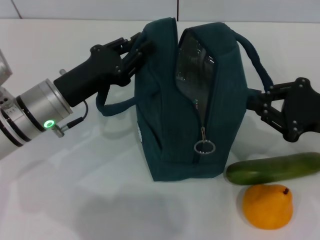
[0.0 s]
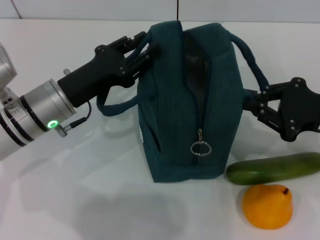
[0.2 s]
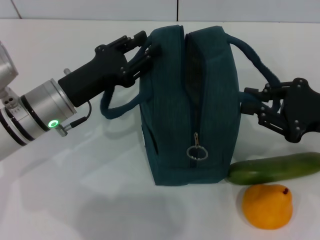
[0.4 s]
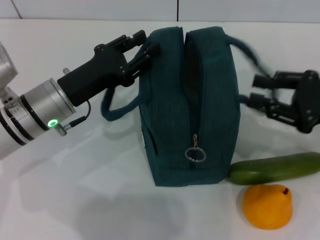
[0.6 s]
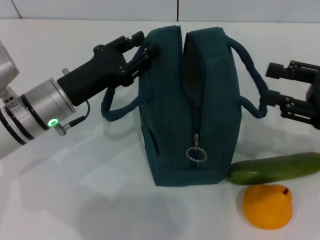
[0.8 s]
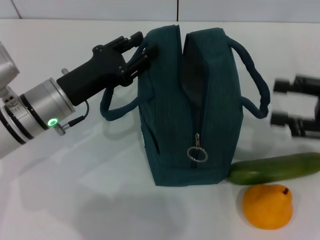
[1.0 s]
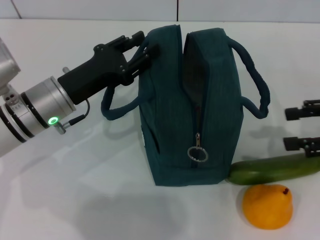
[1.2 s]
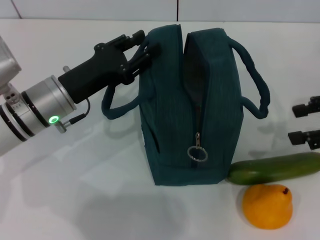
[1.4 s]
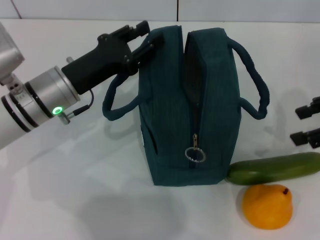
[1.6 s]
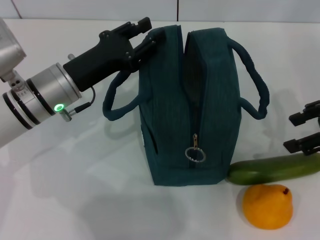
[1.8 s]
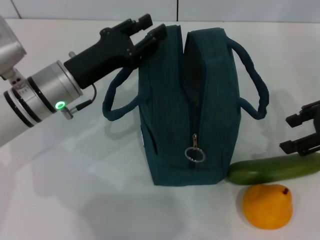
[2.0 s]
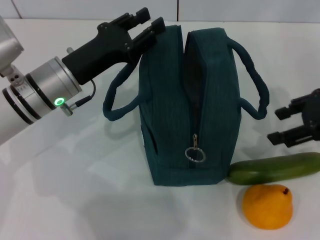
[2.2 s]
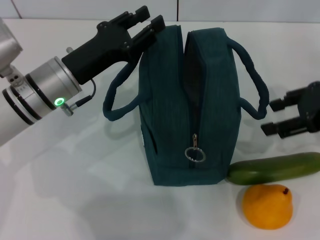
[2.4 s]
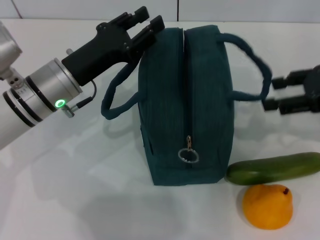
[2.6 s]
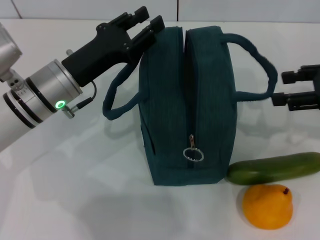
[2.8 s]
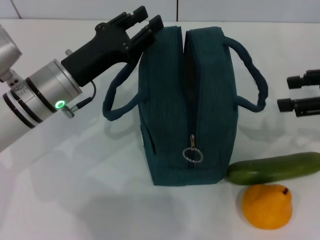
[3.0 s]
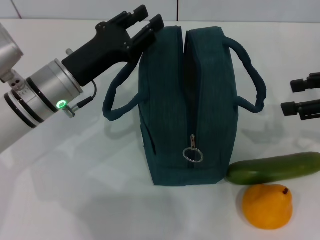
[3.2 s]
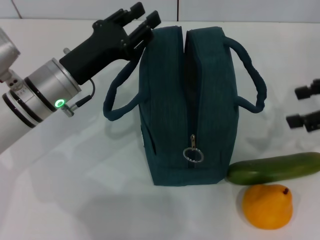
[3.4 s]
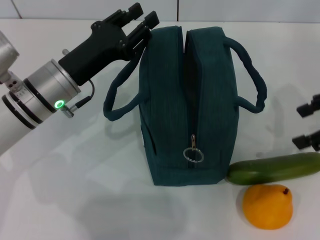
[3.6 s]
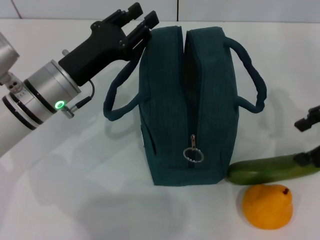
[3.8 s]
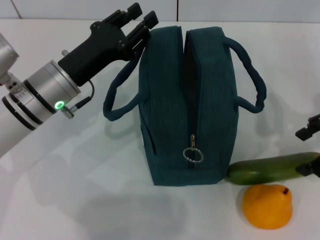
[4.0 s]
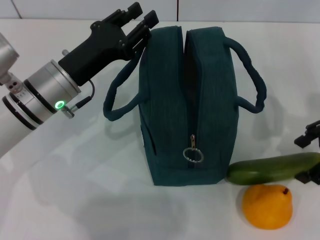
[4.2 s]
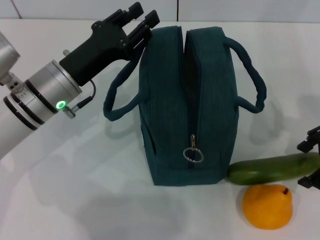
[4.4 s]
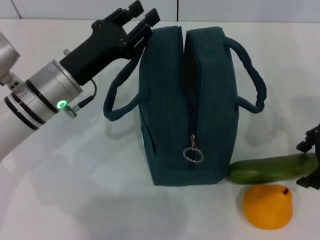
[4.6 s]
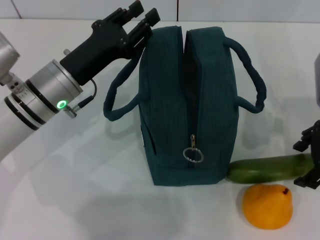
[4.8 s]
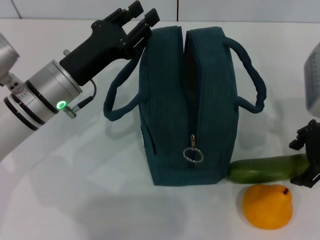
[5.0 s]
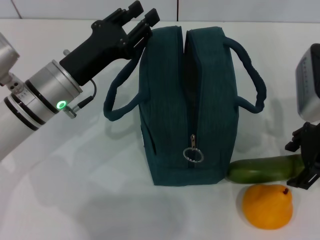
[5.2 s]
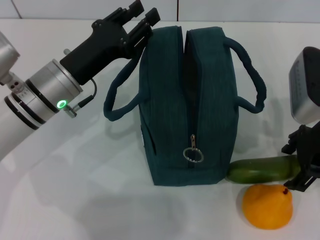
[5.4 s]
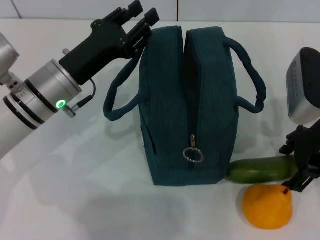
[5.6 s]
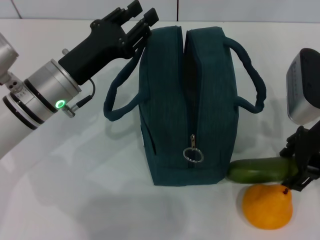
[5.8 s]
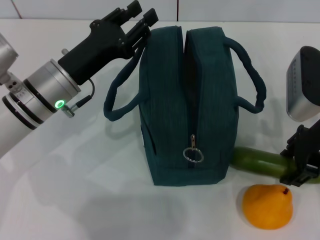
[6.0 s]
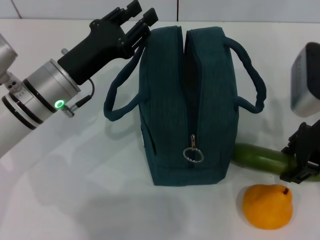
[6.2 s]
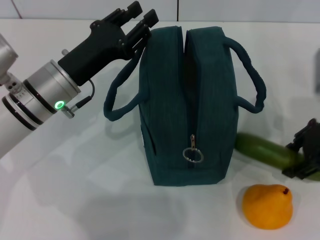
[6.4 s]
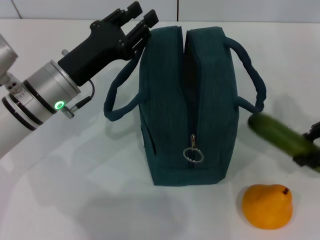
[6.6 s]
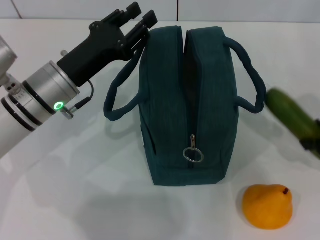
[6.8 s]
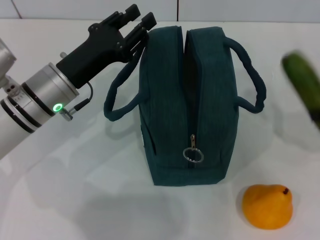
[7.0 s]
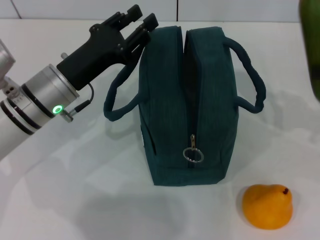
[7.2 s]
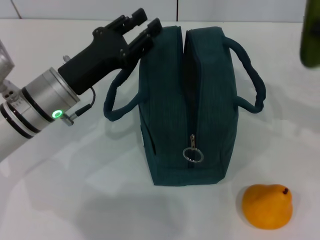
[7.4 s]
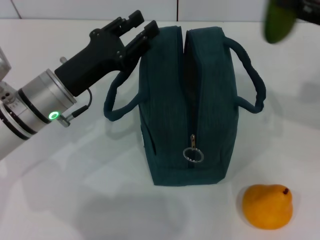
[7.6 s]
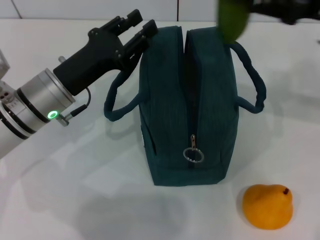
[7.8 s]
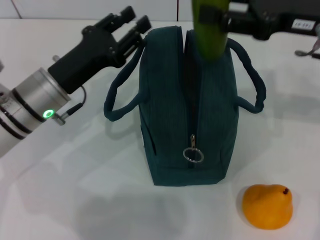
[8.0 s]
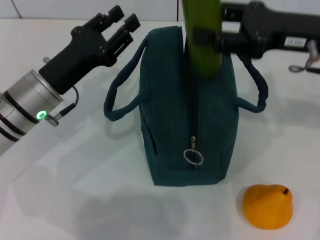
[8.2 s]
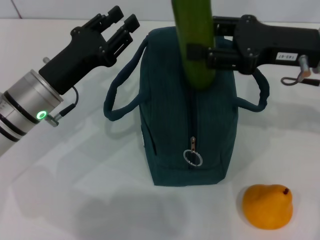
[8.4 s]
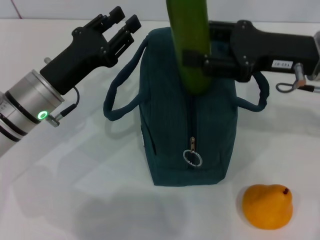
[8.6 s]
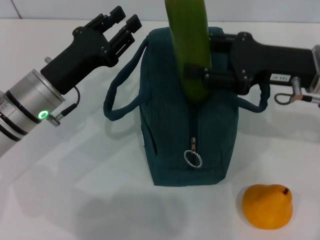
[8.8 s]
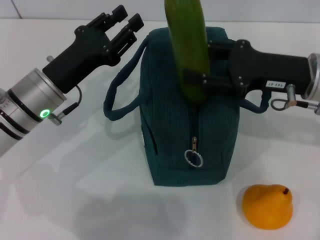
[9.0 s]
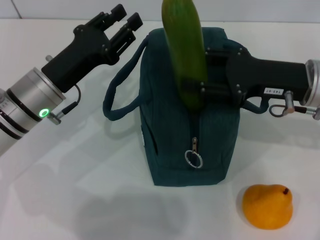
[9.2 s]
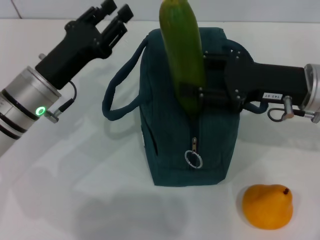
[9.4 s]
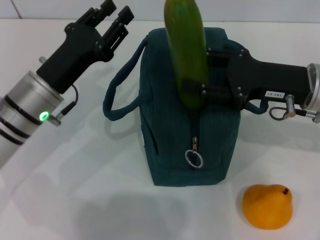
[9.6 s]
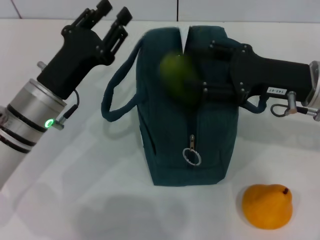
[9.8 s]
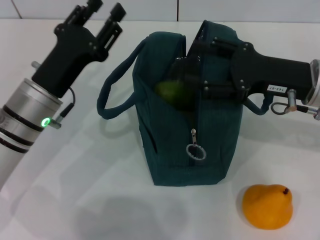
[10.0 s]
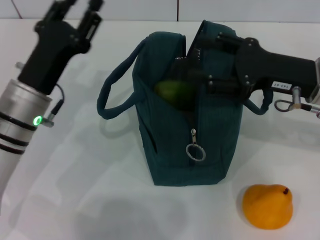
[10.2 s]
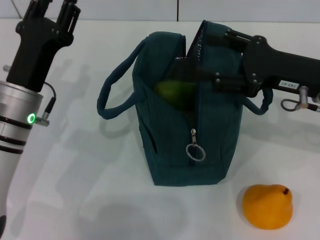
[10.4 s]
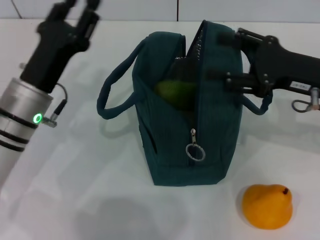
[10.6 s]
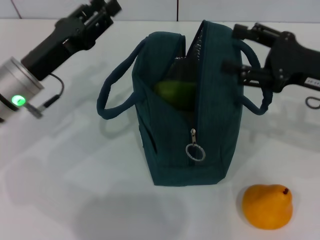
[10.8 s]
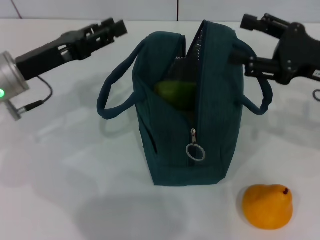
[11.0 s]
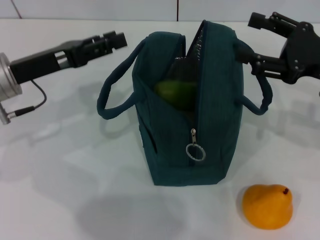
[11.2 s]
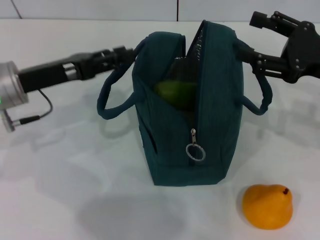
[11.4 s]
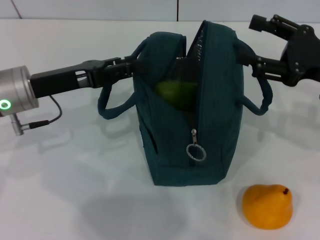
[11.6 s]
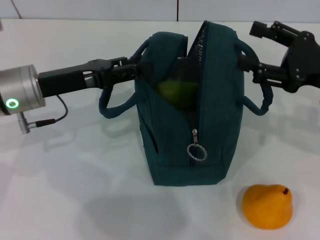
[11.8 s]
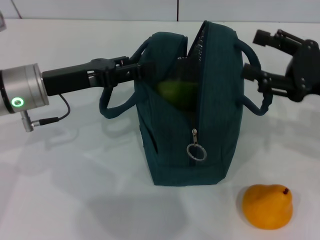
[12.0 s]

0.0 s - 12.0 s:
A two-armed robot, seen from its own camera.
Step, 0.0 s - 5.8 s: Pick up the cucumber with your right hand.
Step, 6.2 s - 10.6 s: Put the cucumber into the lunch bag with your right hand.
0.0 s - 1.6 s: The right gripper is displaced upward by roughly 10 cm, and opens up.
1.6 s - 3.0 s: The grippers make only small movements.
3.0 s - 4.4 s: The right gripper shifts by some 5 cm.
4.4 s - 6.0 s: The right gripper shifts by some 5 cm.
6.0 s - 7.6 s: The right gripper heads to the right and upward, covering roughly 10 cm.
7.6 s - 9.0 s: The right gripper heads to the left and downward, covering some 10 cm.
10.4 s - 12.0 s: The right gripper heads to the right, covering roughly 5 cm; the left gripper moves about 5 cm.

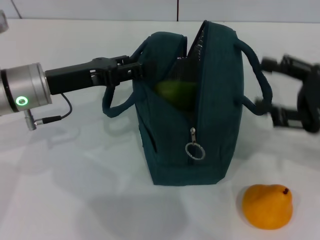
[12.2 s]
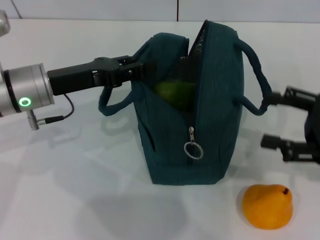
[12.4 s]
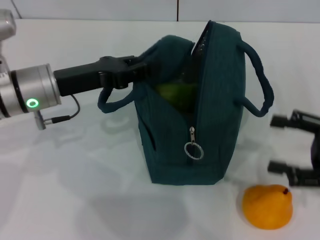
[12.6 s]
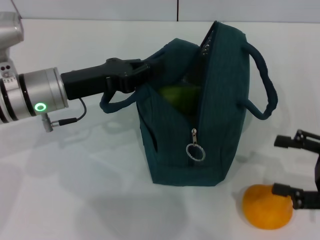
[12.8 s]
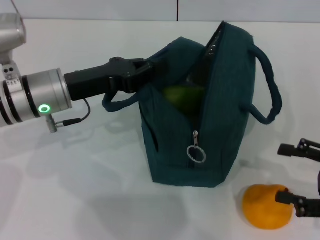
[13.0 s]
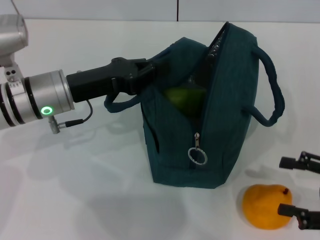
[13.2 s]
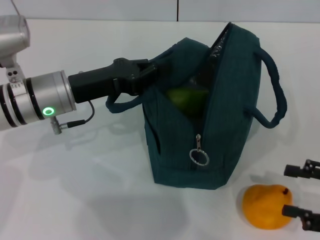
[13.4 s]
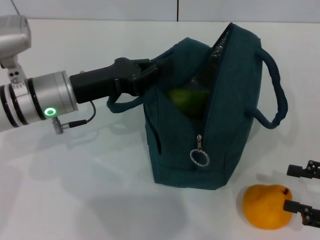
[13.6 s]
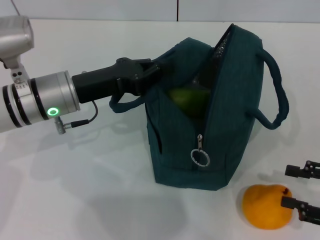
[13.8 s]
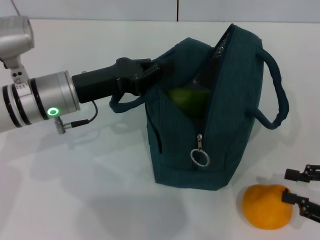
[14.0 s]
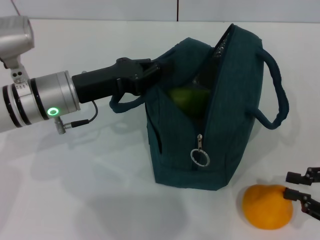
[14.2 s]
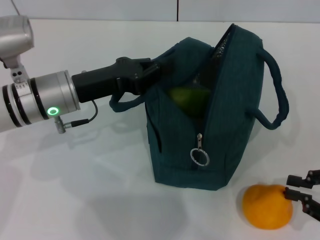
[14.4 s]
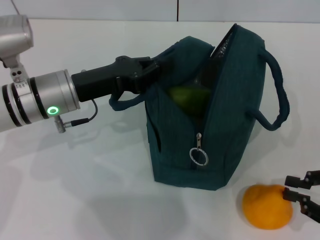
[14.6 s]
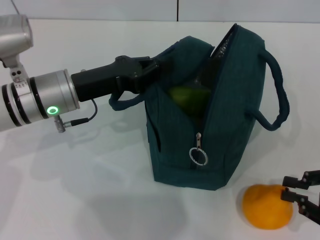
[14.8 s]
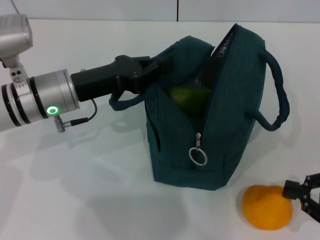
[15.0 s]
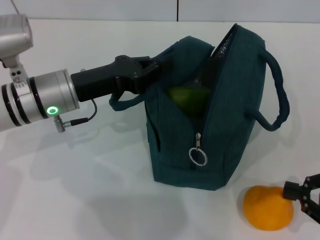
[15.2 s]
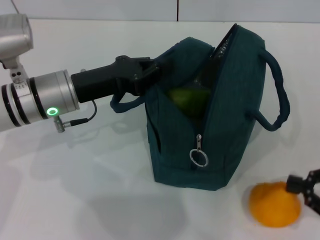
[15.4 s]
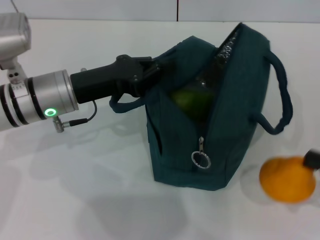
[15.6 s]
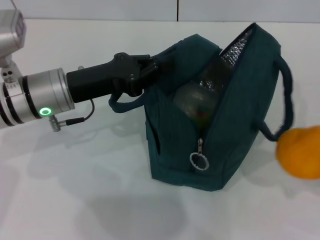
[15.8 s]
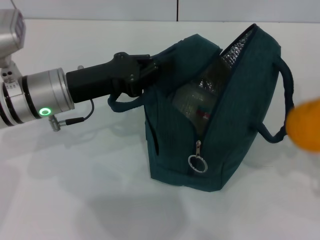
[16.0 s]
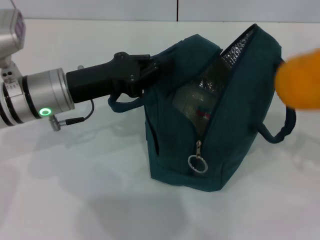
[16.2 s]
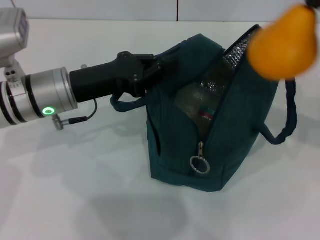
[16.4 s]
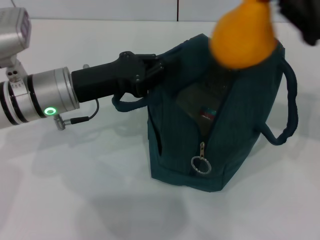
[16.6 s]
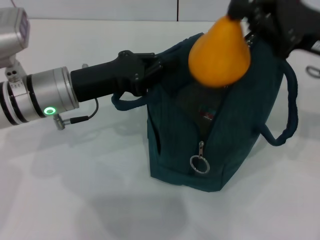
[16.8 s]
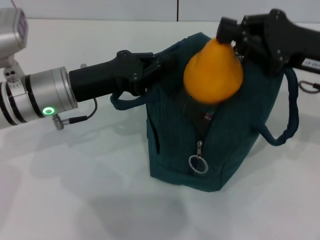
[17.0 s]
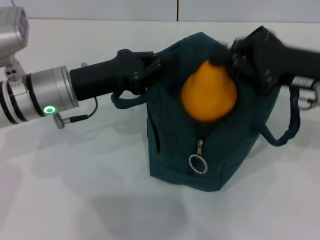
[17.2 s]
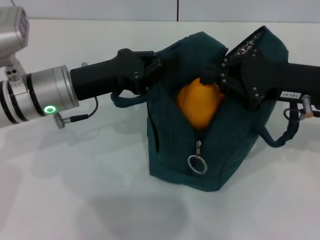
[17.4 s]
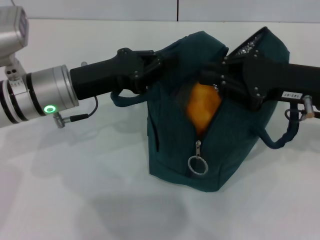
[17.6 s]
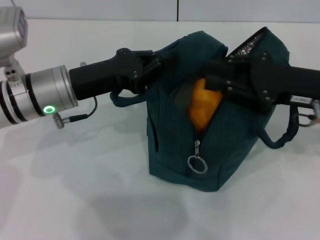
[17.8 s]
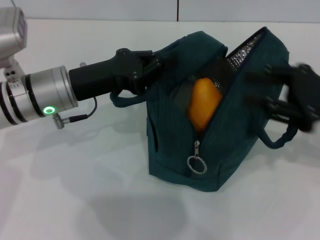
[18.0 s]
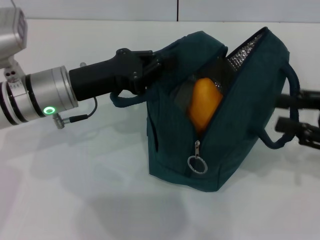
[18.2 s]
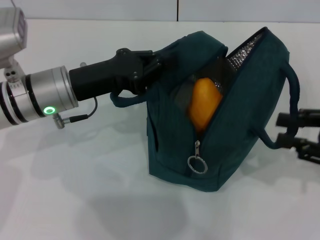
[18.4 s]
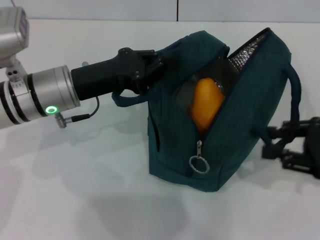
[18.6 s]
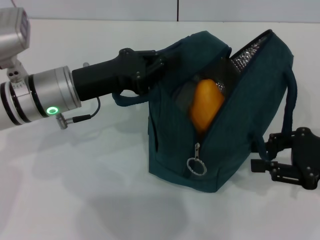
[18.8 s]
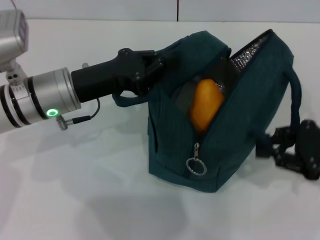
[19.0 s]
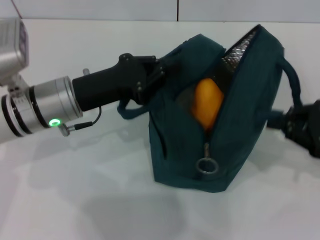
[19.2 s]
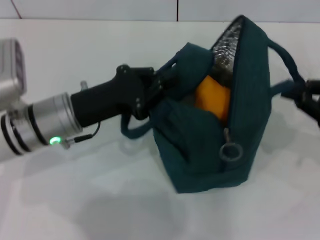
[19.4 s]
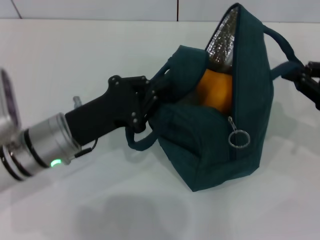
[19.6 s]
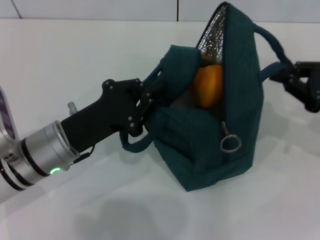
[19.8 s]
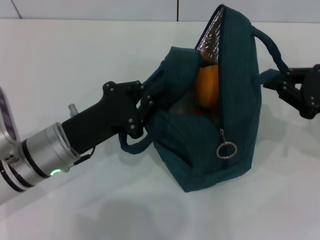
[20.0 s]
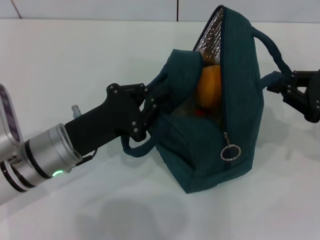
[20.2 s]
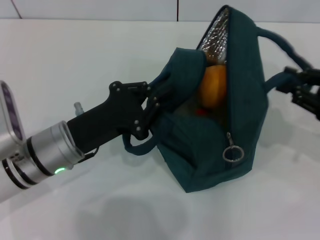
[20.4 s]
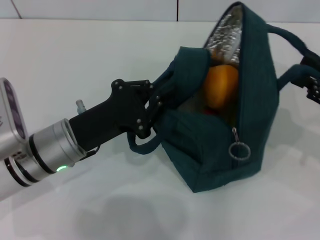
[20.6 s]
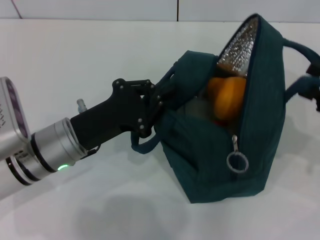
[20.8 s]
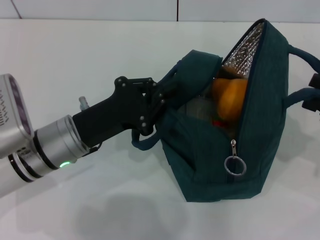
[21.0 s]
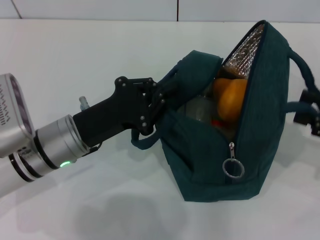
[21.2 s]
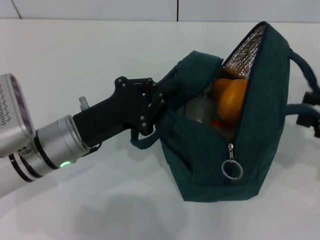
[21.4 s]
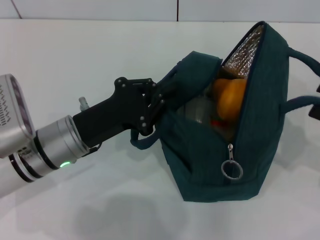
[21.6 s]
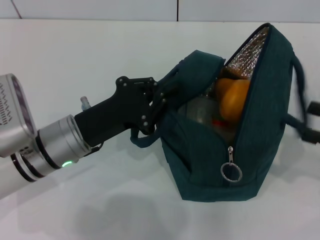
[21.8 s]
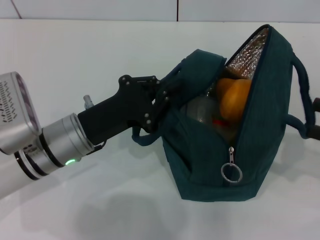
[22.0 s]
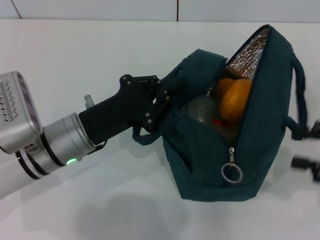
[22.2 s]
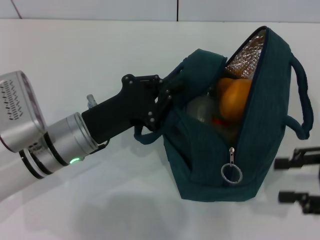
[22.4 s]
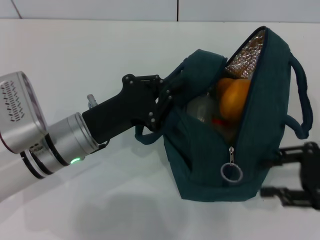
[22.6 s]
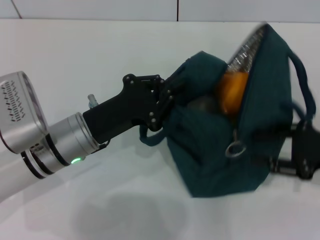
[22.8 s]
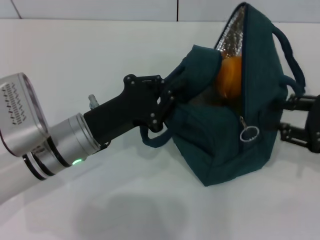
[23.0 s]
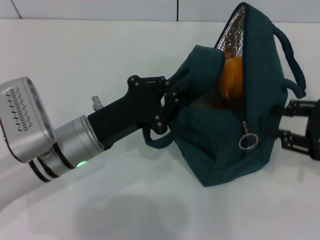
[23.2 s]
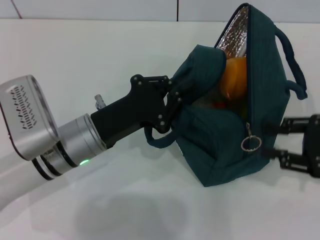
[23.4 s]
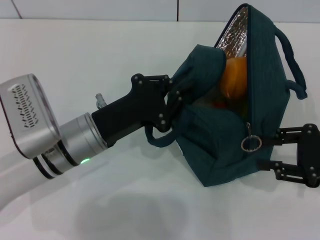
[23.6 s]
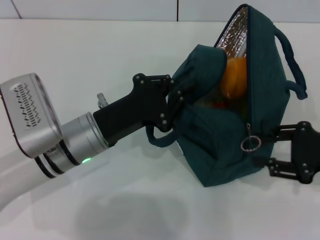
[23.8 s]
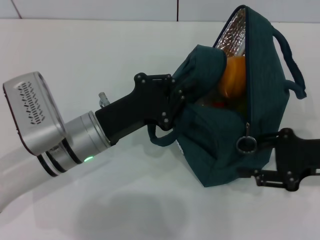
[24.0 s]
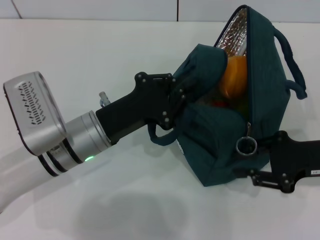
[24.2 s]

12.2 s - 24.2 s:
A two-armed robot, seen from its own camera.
Step, 12.2 s - 15.2 s: Grab the pear with your right hand.
Step, 18.0 s - 22.0 s: Hold the lunch bag with your right hand.
12.2 s - 13.8 s: The left gripper closes up, while the right gripper is displaced backward, downward and to the right by approximately 15 cm.
13.8 s - 15.2 s: The right gripper closes up.
15.2 s - 16.6 s: The right gripper heads forward, upward and to the left, covering about 20 cm.
16.6 s - 18.2 s: The right gripper goes roughly 10 cm backward, to the right and downward.
18.2 s - 19.8 s: The left gripper travels backward by roughly 5 cm.
19.8 s - 21.2 s: The right gripper shifts by approximately 5 cm, and opens up.
